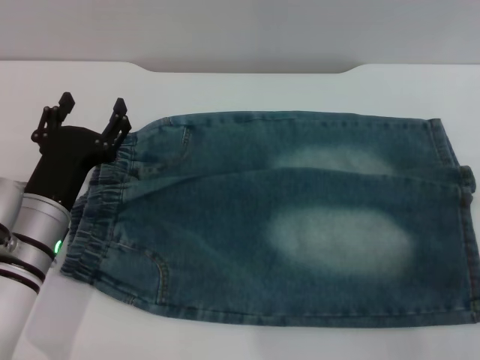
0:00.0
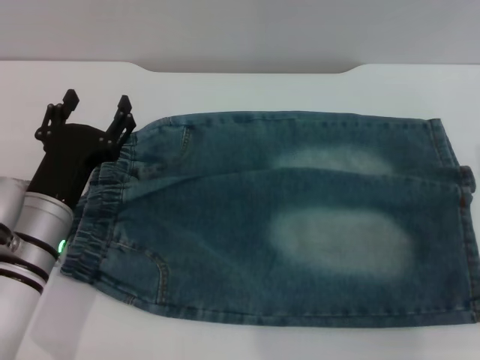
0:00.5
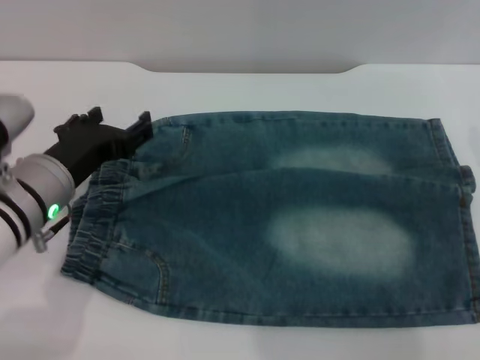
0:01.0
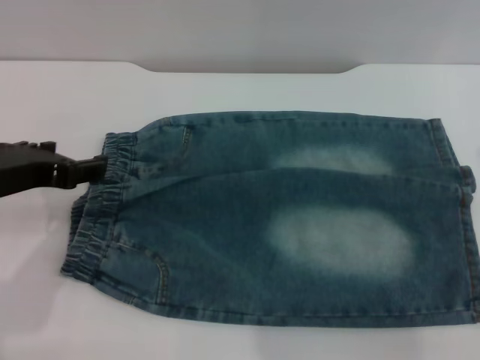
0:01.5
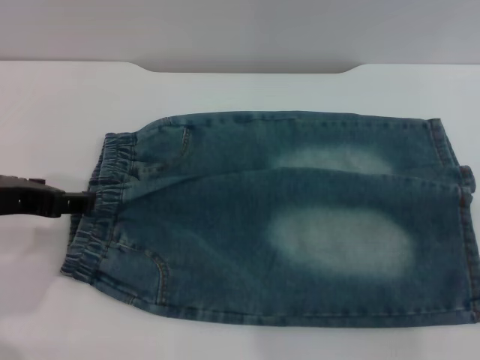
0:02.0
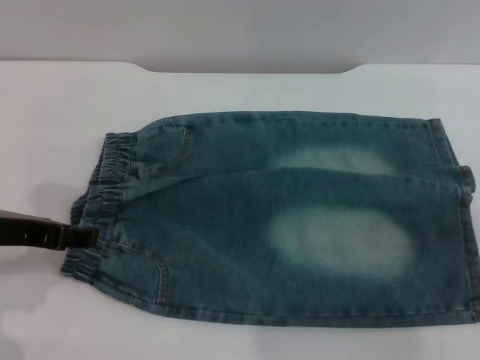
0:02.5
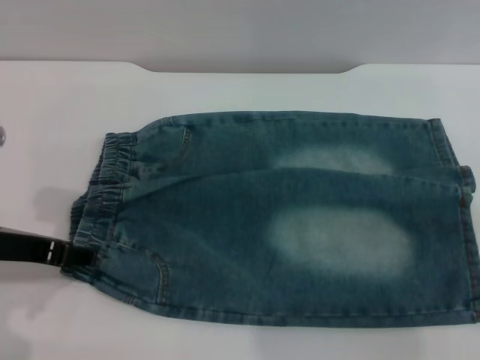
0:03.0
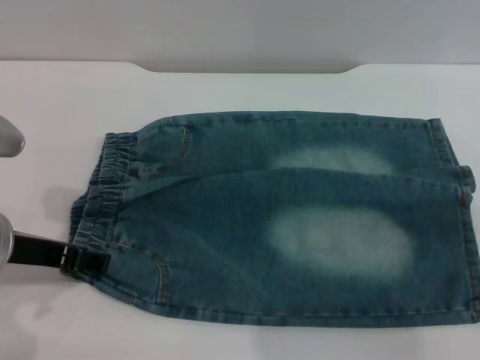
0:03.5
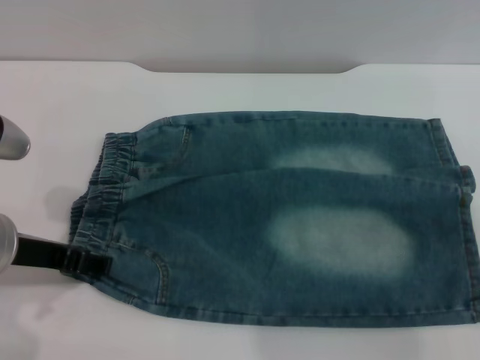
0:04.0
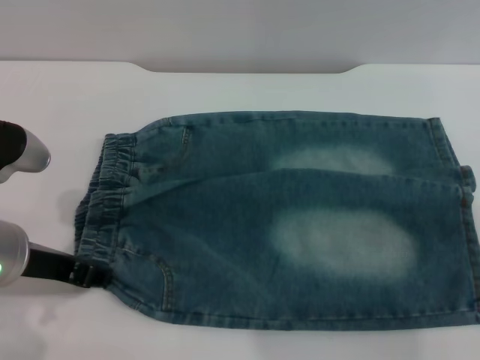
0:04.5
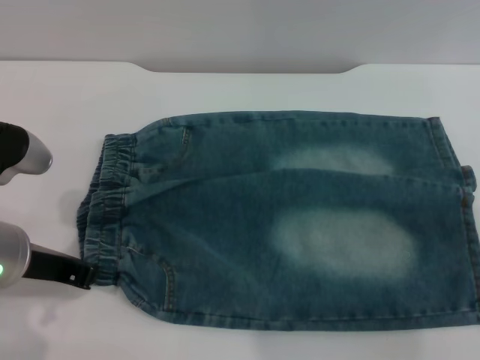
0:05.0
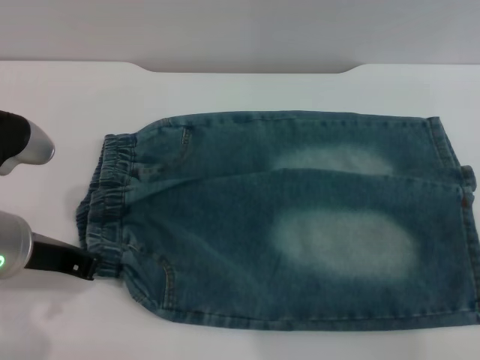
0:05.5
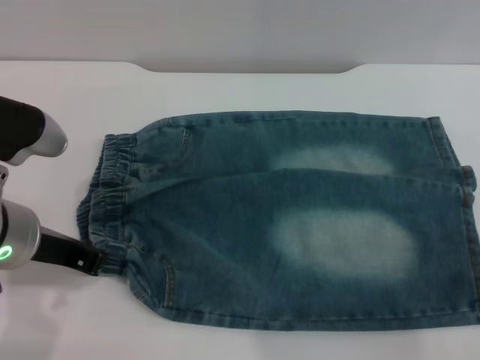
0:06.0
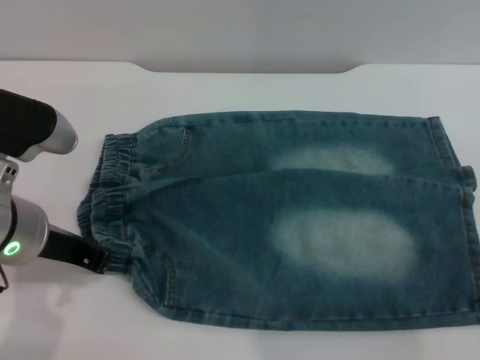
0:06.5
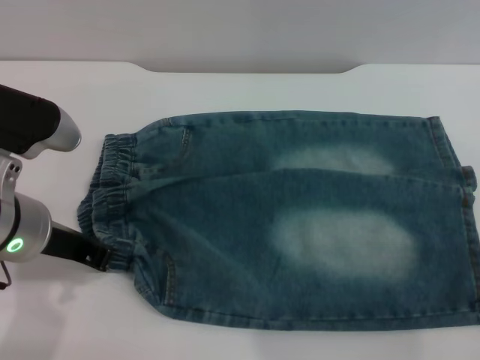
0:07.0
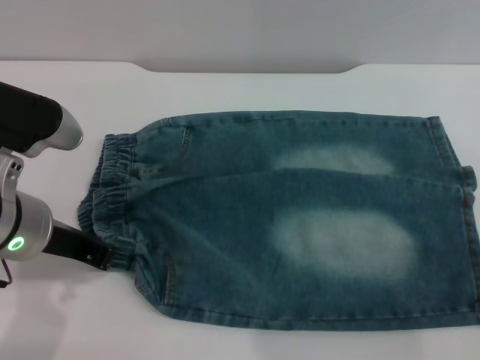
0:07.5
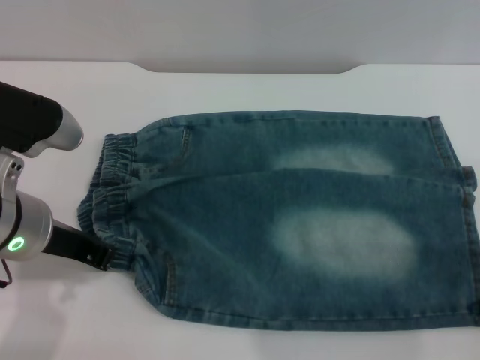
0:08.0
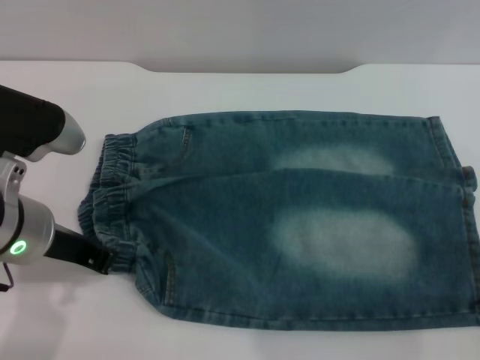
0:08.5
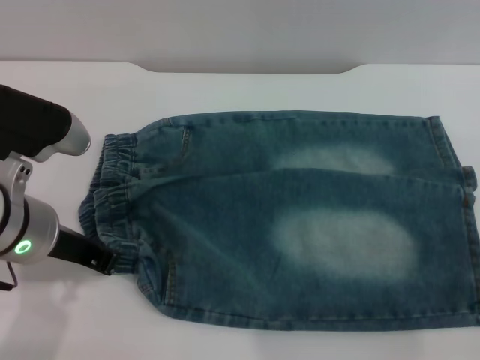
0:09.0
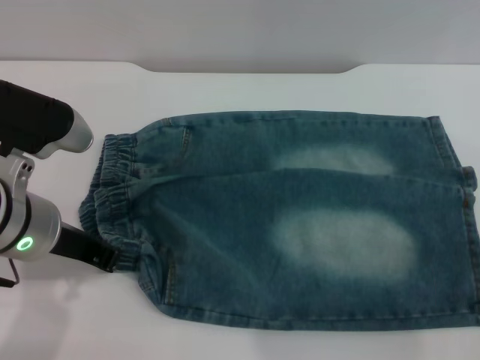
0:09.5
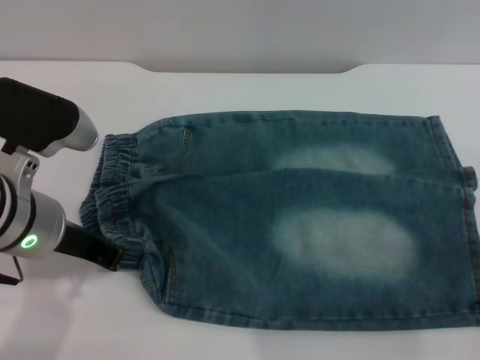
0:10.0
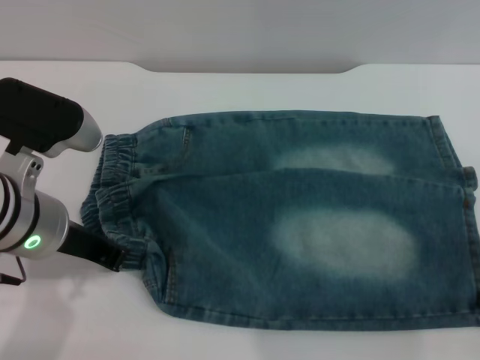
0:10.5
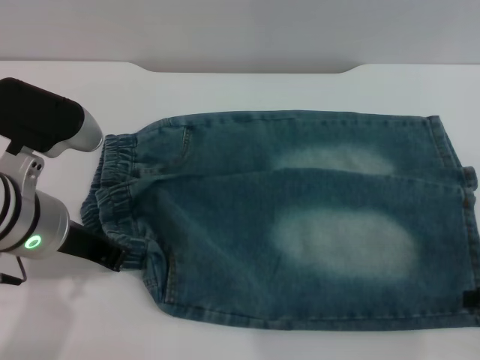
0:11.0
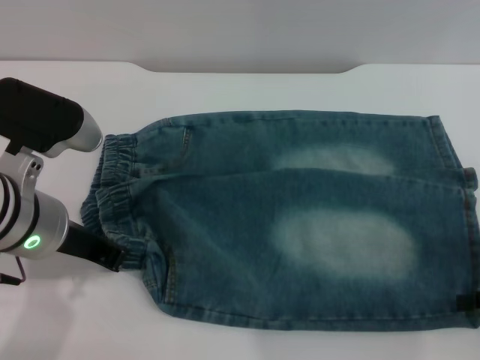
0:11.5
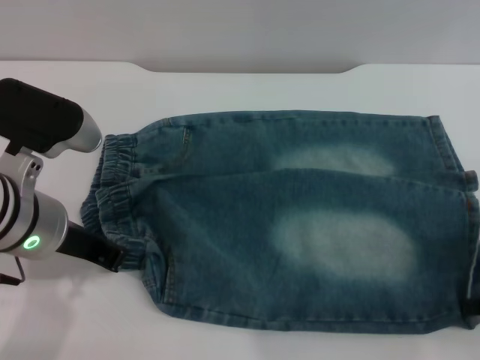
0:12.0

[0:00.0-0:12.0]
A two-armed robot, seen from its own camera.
0:00.0 to 0:02.0: The left gripper heads upward, covering roughly 15 cm.
0:02.0 to 0:04.0: The left gripper shifts about 5 cm downward.
0:04.0 to 0:06.0: The left gripper closes up. The right gripper shifts some 5 cm downward.
0:10.0 to 0:12.0: The right gripper closes up.

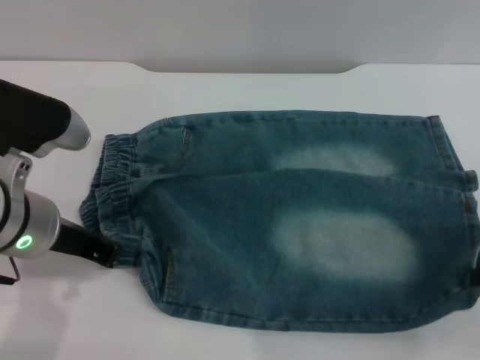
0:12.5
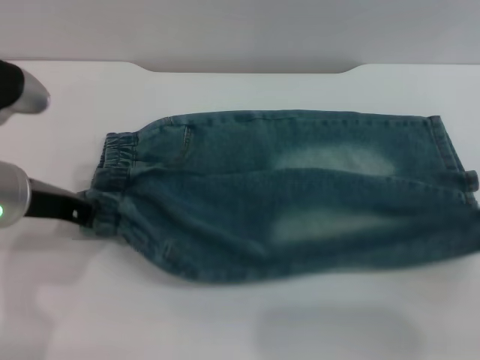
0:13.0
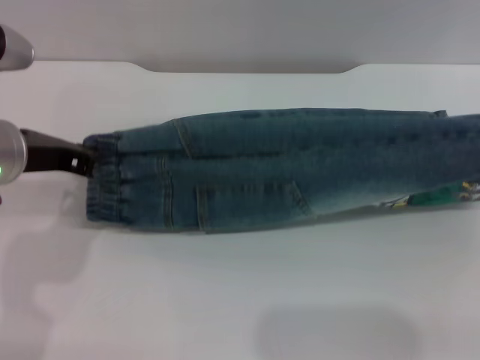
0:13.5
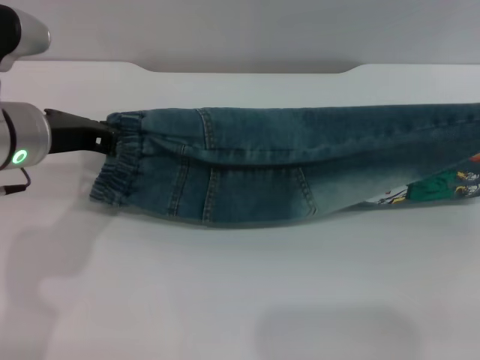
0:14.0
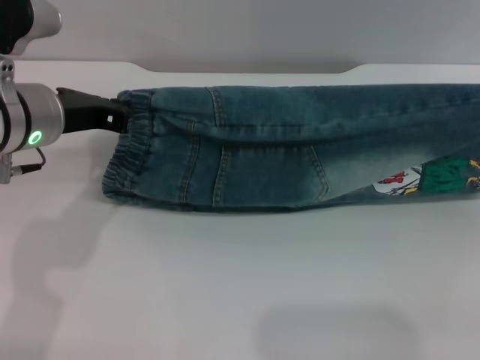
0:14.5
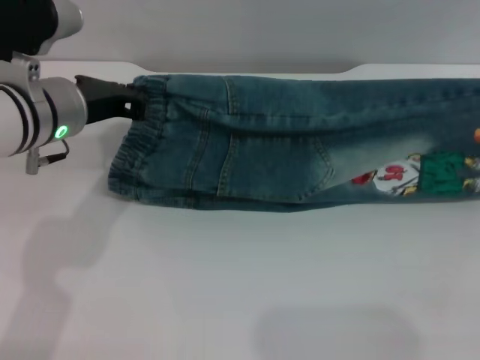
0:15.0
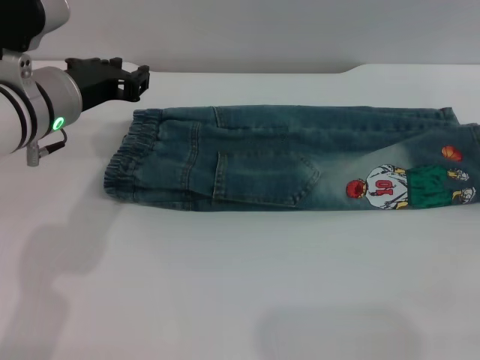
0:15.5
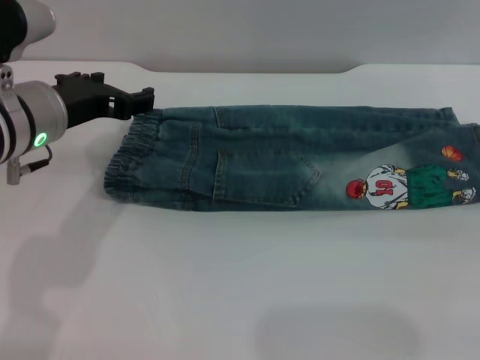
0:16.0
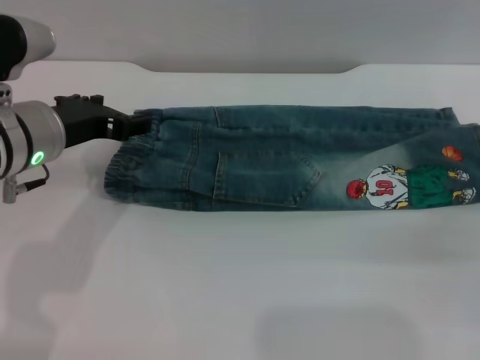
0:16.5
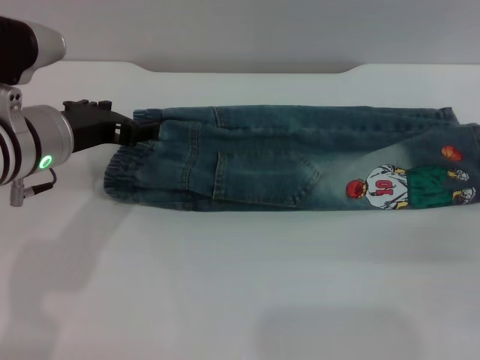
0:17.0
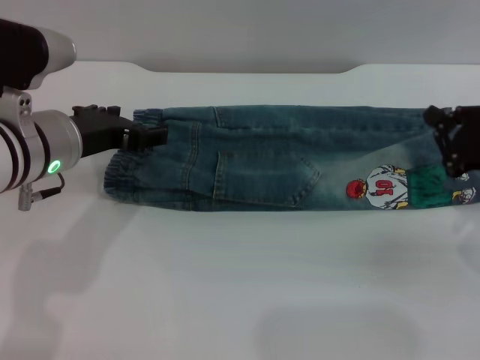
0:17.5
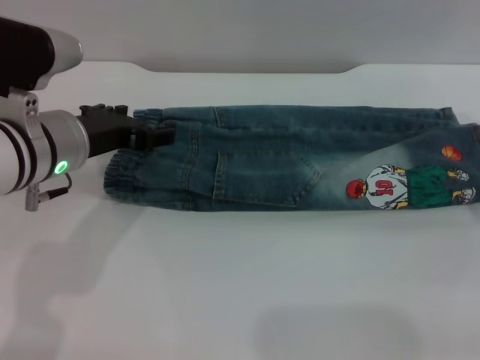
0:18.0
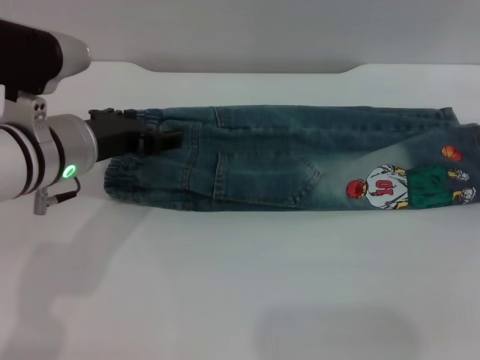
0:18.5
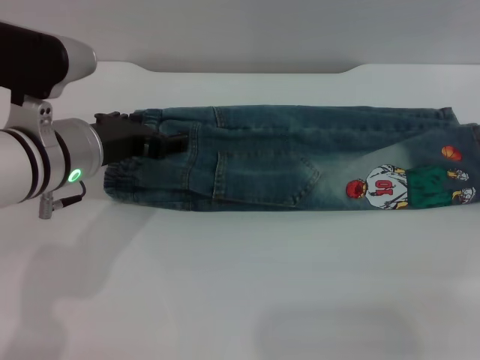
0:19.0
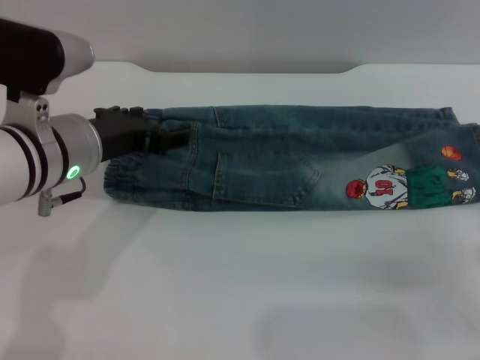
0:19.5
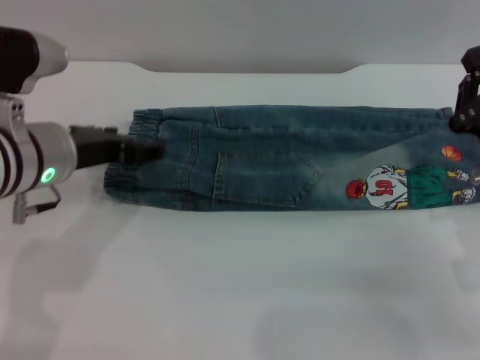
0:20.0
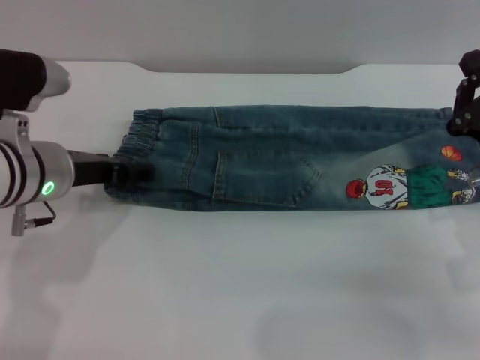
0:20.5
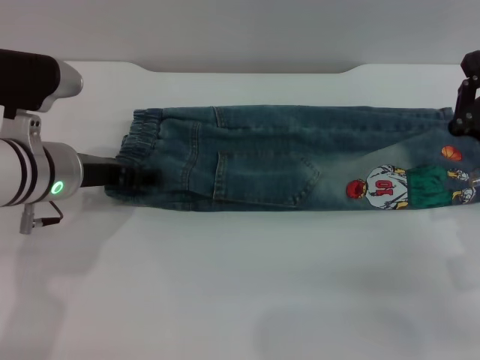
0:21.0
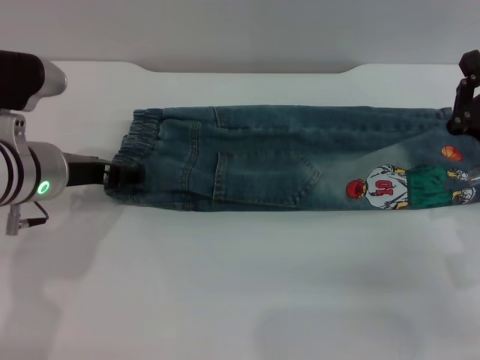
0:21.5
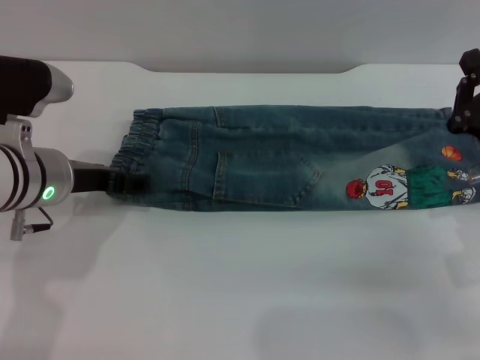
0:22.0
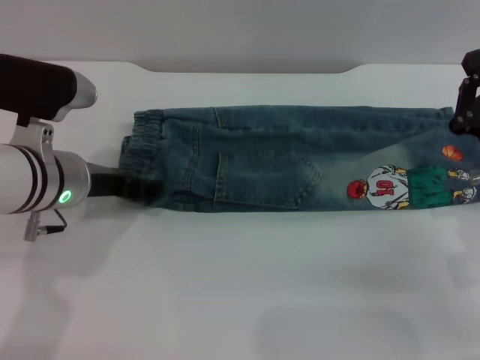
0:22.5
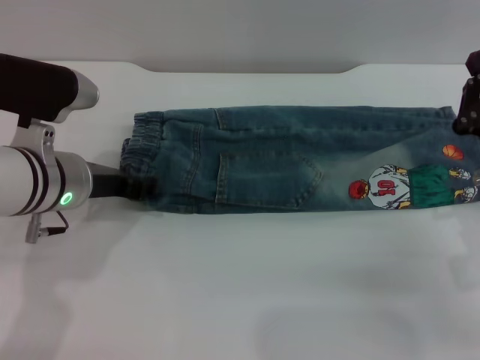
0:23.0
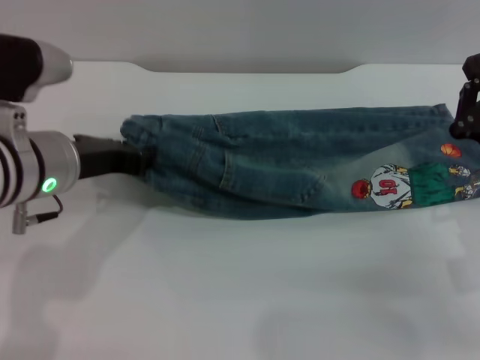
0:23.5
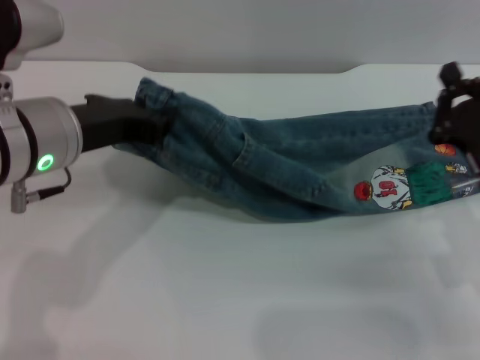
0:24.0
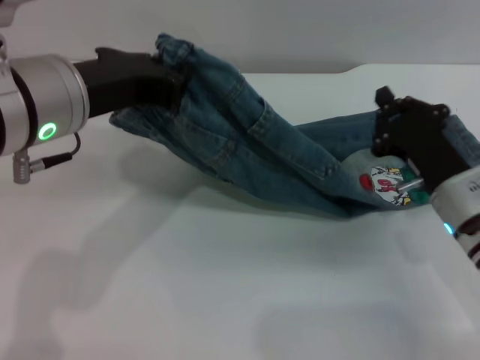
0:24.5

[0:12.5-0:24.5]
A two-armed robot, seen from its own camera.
Step, 0:12.5 to 0:16.0: Fold the bottom of the pants upward with both grippers.
0:12.5 to 0:14.5: The right gripper travels upward and forward by roughly 10 cm. The left gripper goes roughly 5 cm forward.
0:14.5 to 0:16.5: The left gripper opens up. Meanwhile the right gripper shifts about 15 cm downward, and opens, then closes once more.
0:18.5 to 0:20.5: The right gripper moves to the left, backward and downward, about 15 cm.
0:20.5 to 0:22.5: The grippers move only a little.
0:22.5 to 0:24.5: The left gripper is displaced upward by about 10 cm, and closes its fingers. Meanwhile the right gripper ends up some 5 cm from where it was.

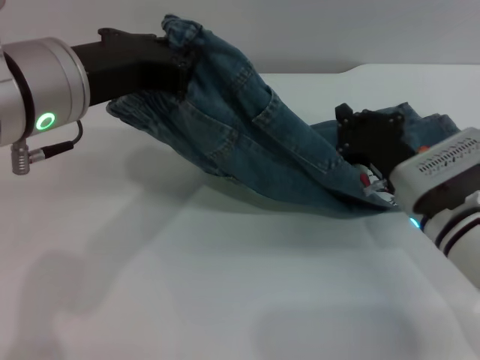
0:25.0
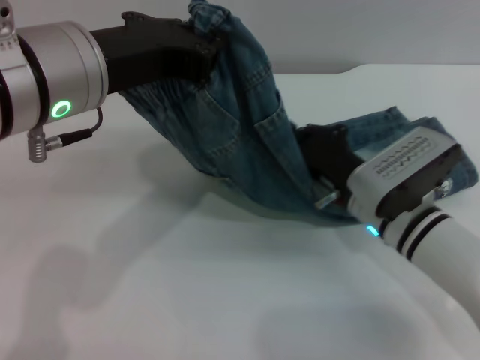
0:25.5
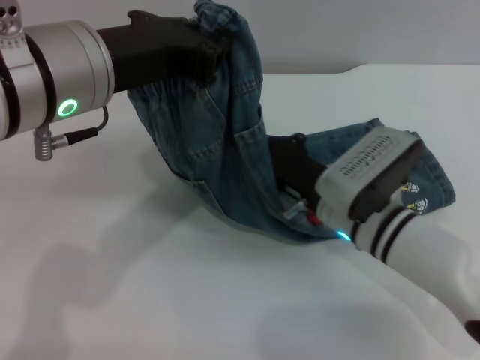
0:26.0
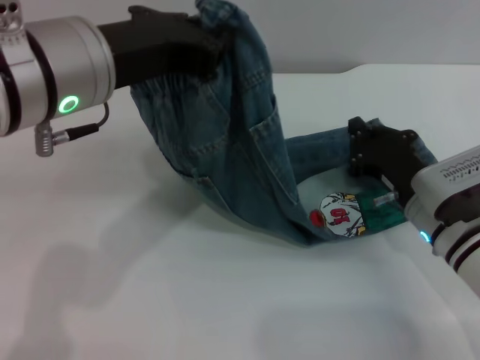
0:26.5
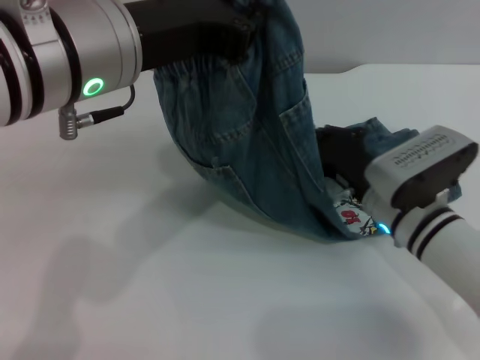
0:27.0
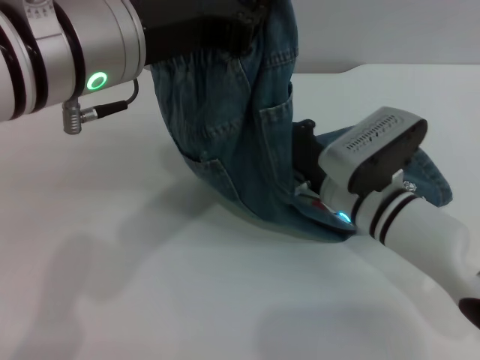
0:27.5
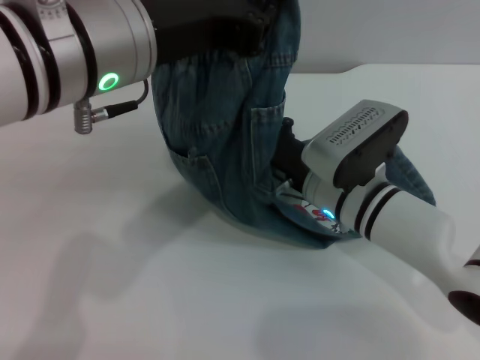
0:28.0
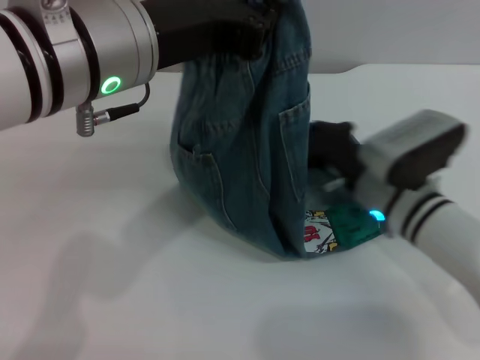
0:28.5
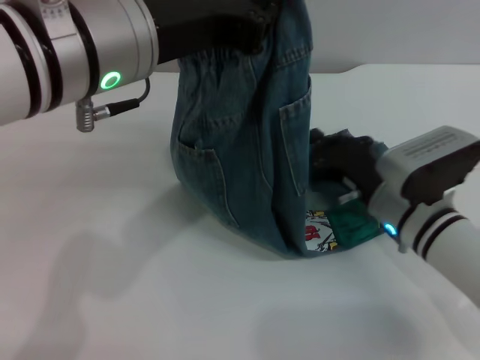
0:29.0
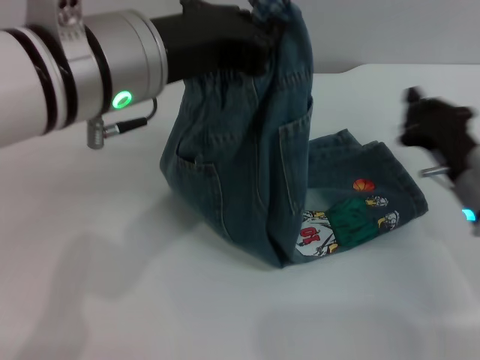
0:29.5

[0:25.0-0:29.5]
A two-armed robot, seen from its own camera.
0:25.0 to 0:27.0: The right gripper goes left and right, about 10 cm each way, reversing 2 times.
0:27.0 to 0:29.5: The right gripper travels to the right by approximately 10 cm.
